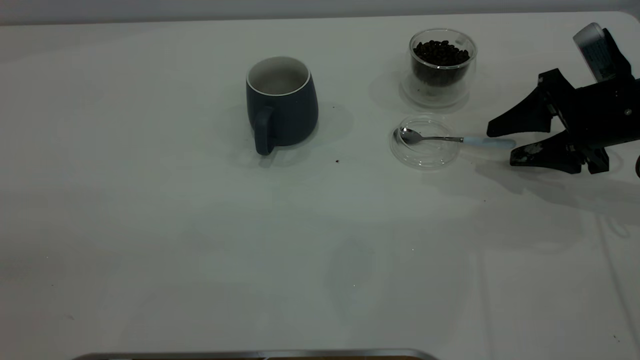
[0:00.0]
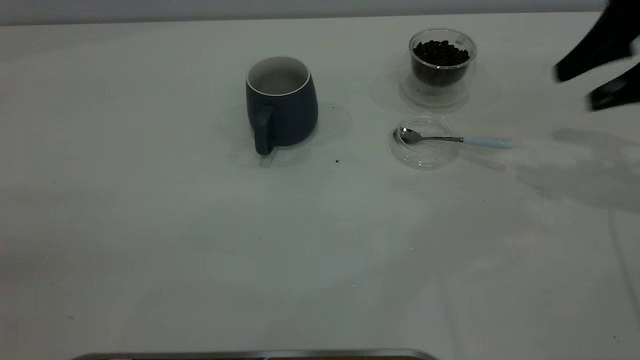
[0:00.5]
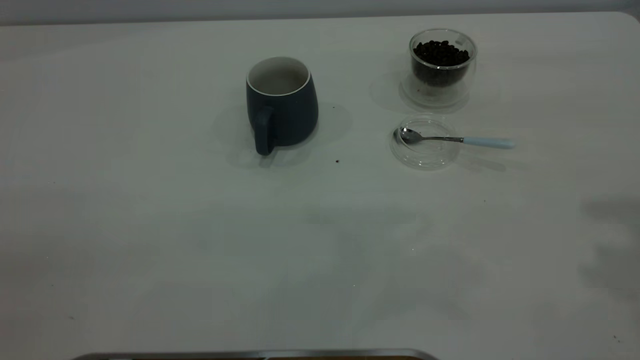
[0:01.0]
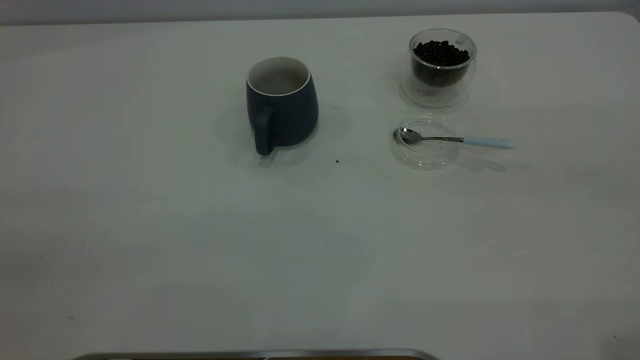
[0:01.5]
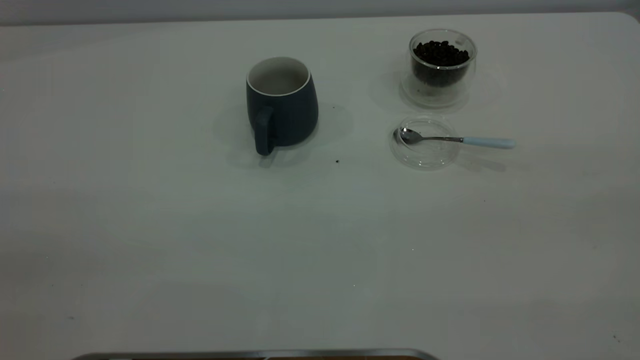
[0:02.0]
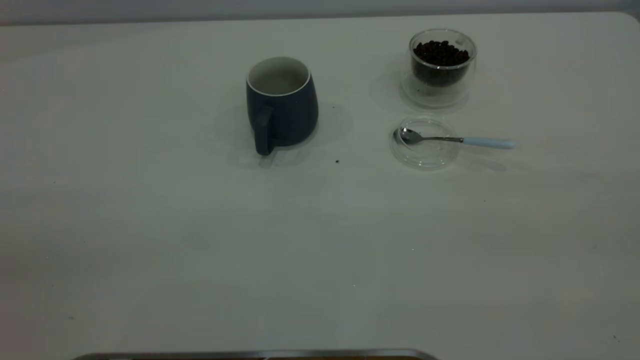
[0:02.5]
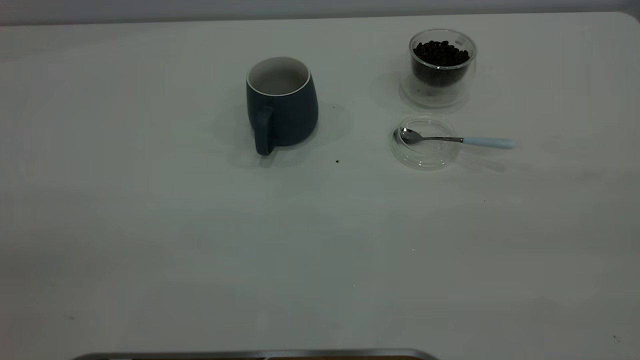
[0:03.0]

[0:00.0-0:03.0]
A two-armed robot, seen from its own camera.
Task of the whole recording: the left gripper place the grey cup in the center of the table, the right gripper take the blue spoon from the cup lid and scoop out the coffee beans from the coffee cup and put them into the grey cup, the right gripper put the spoon back into the cup lid.
0:00.0 to 0:01.5: The right gripper is displaced upward and backward by about 40 cm.
